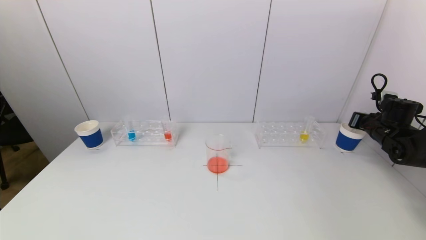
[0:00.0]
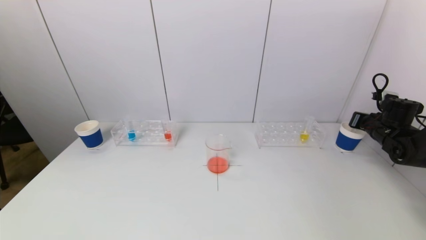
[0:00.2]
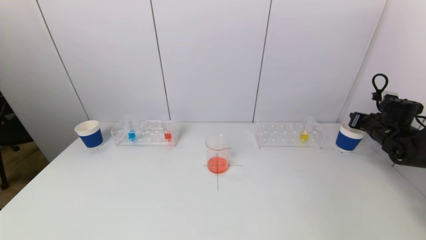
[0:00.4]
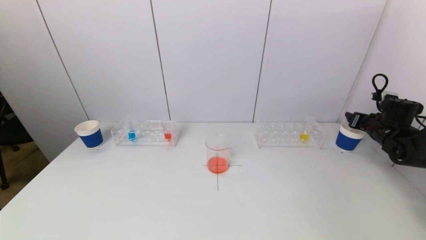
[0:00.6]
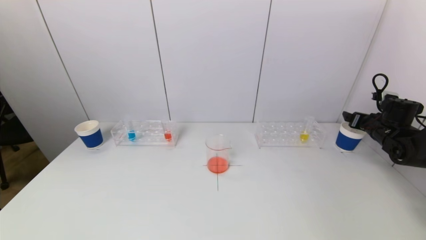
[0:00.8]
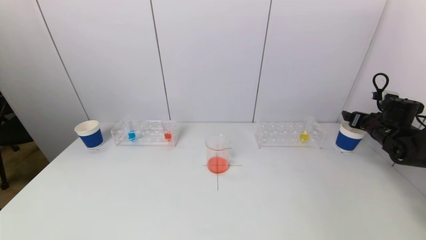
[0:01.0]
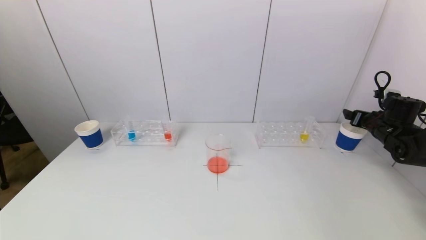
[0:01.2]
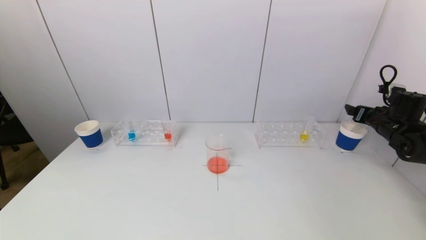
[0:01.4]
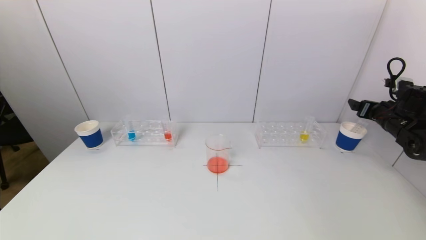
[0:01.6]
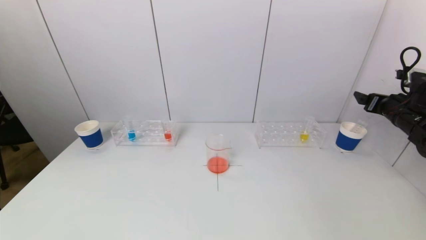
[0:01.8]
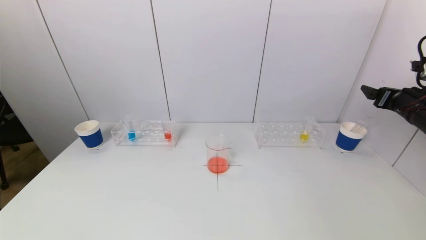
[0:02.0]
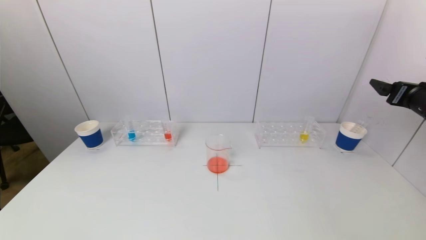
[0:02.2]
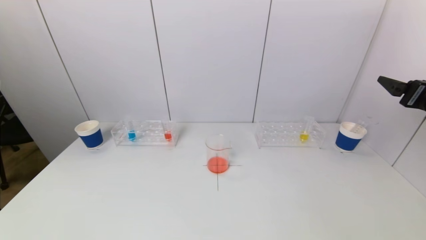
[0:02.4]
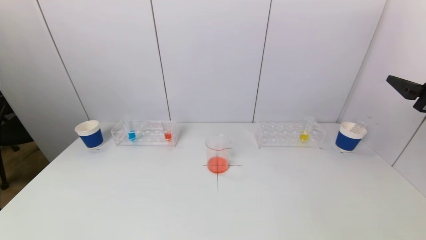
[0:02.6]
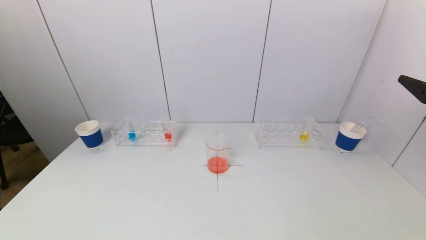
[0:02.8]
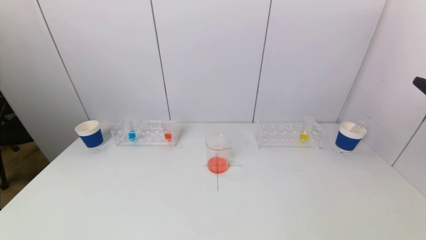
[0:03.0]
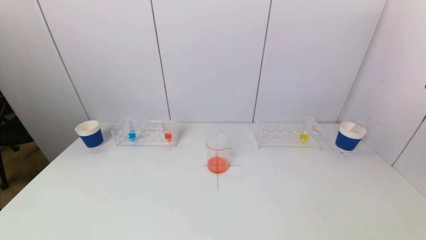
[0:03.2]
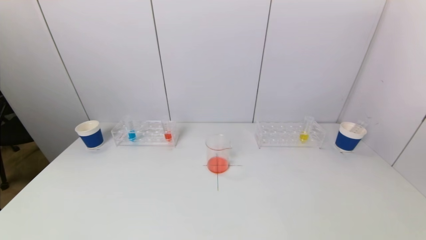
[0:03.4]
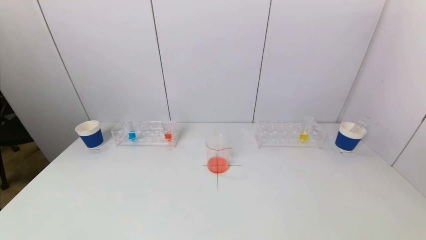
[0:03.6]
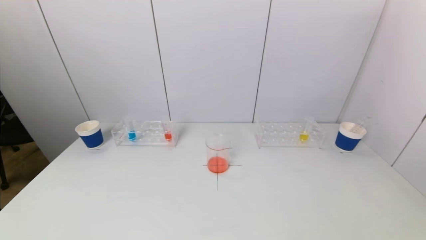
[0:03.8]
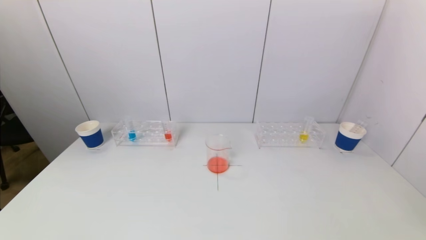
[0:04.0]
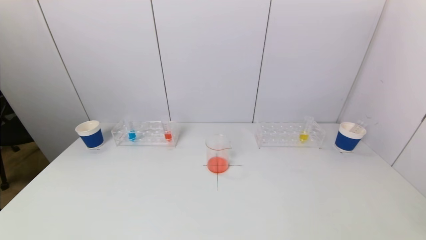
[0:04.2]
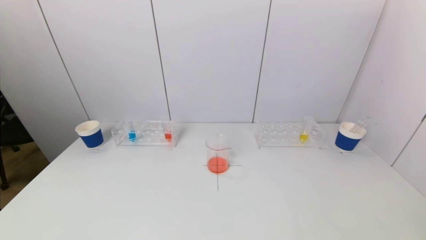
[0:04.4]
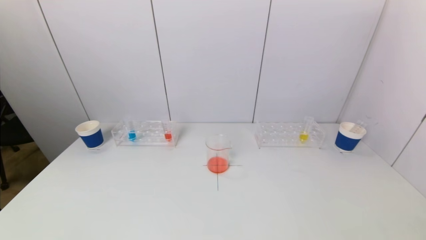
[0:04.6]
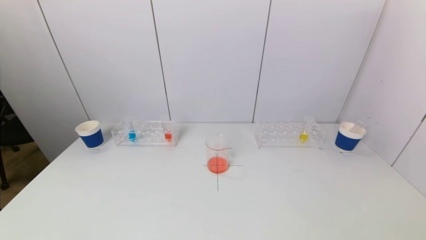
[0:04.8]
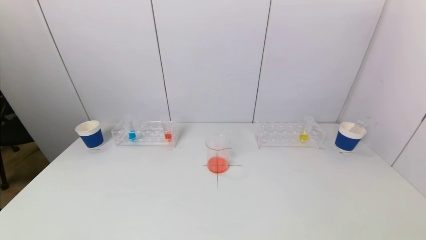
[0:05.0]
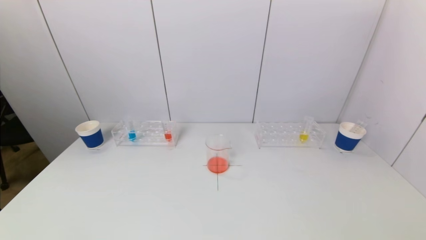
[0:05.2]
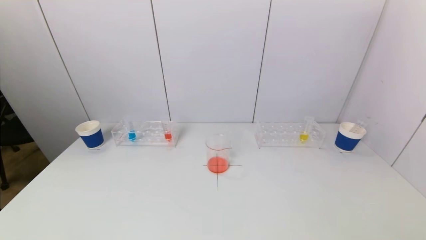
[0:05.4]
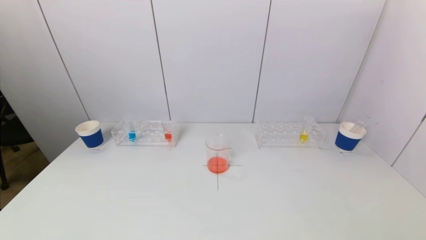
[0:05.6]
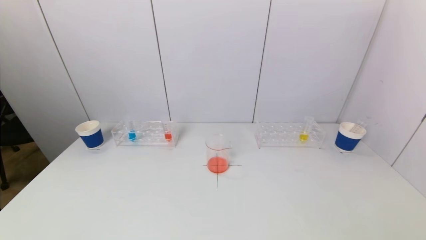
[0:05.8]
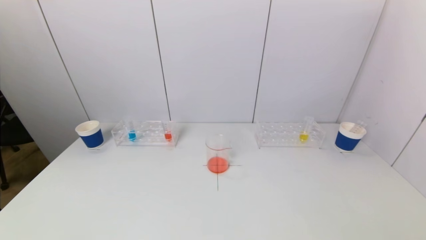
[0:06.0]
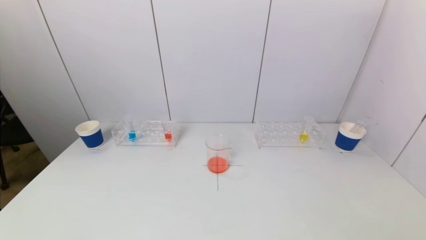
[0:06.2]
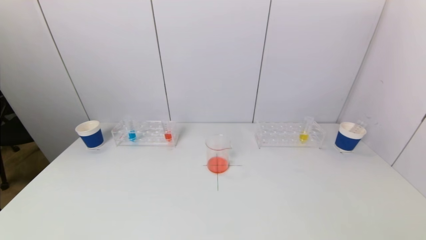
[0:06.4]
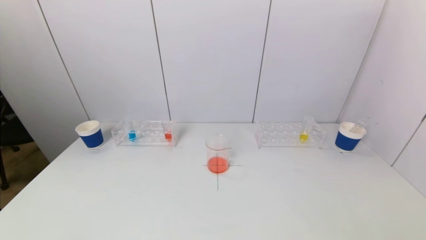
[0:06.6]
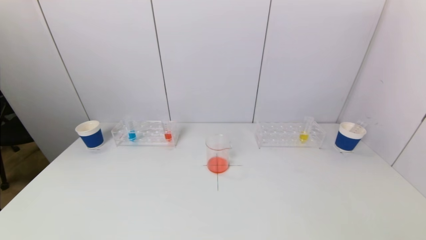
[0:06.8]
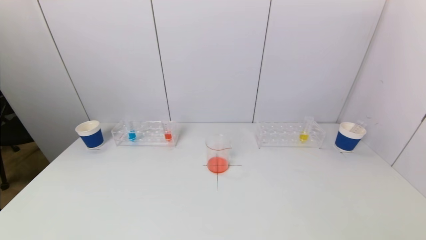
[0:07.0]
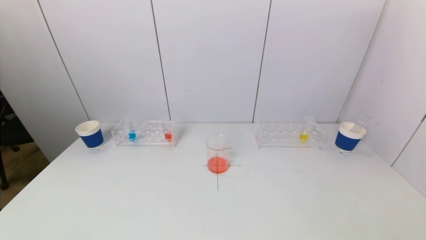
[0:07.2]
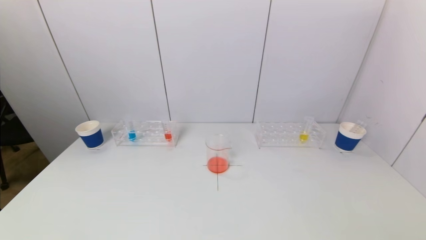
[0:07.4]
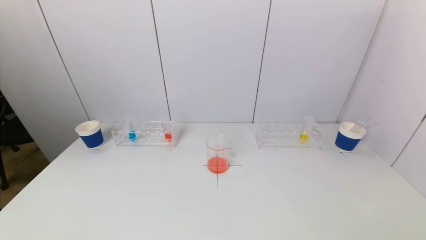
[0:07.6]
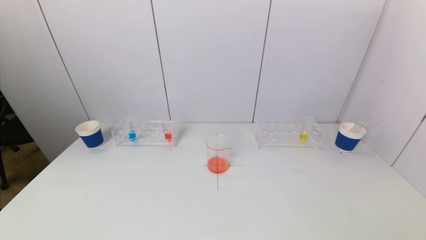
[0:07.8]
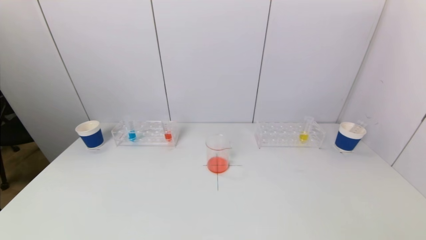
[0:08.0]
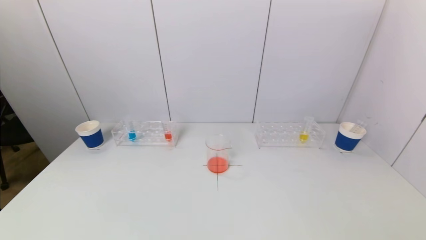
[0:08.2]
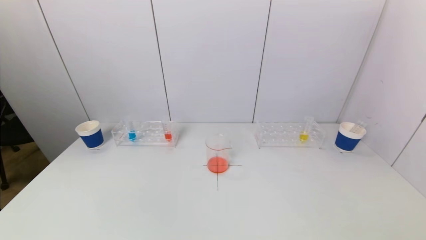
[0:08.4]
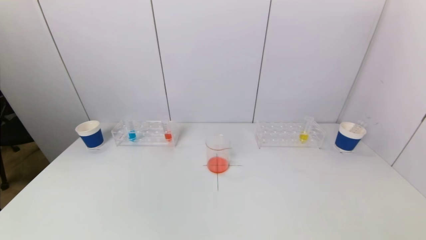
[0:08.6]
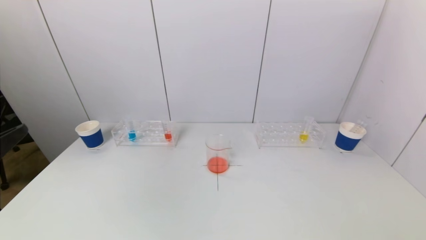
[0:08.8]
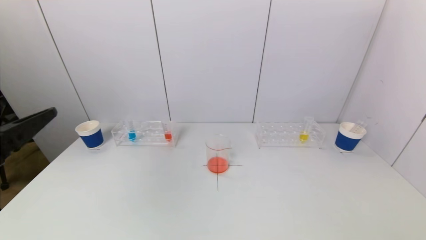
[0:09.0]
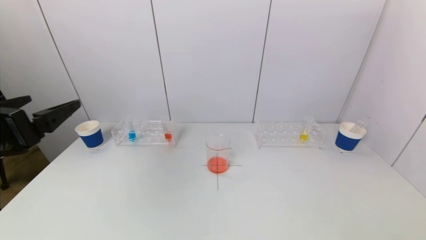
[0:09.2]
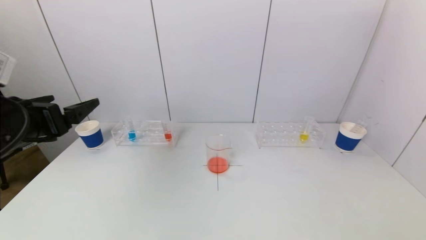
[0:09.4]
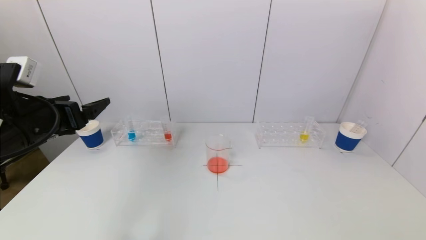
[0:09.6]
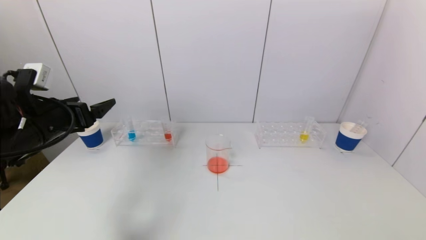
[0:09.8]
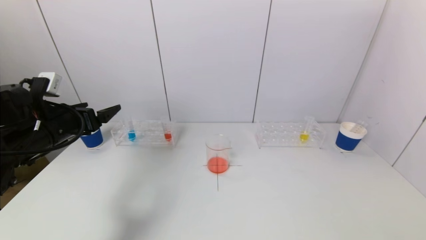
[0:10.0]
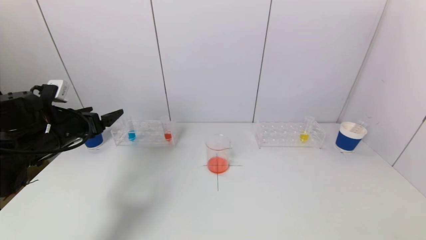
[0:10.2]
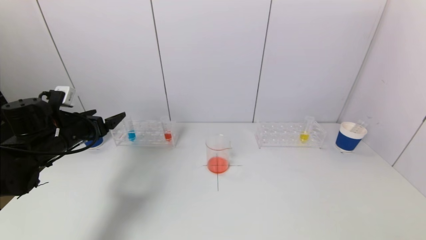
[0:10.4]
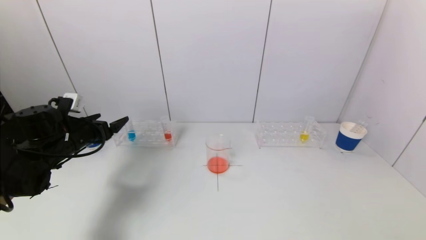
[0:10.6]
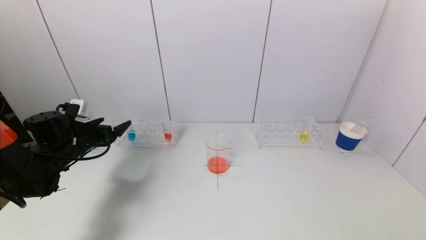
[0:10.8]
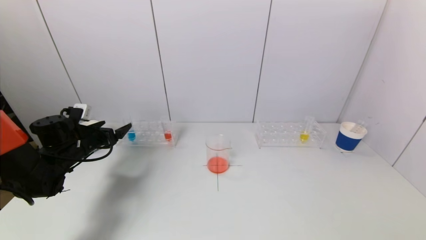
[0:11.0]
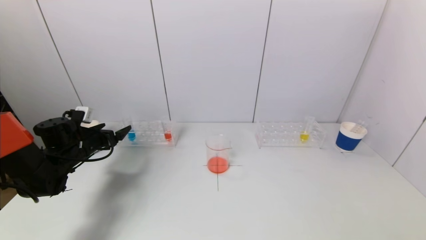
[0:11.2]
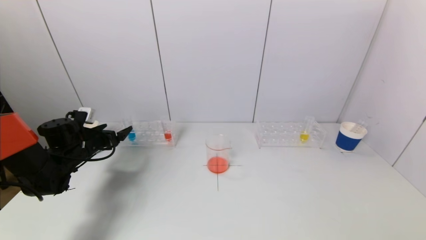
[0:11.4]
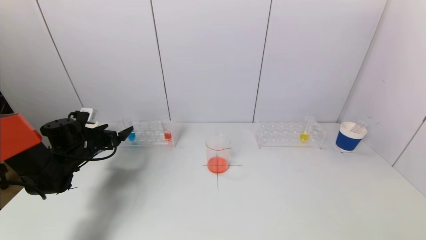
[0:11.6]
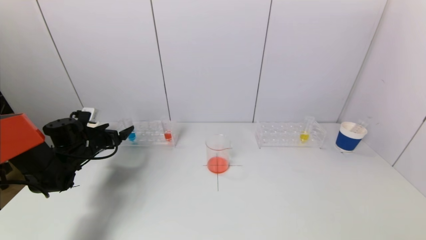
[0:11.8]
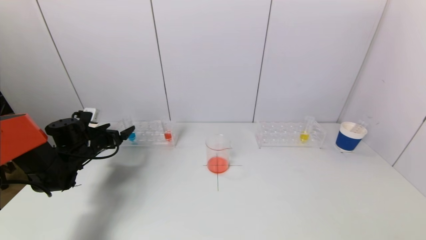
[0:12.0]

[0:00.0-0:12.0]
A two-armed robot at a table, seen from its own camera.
Task of the whole recording: pick up a test tube with pigment on left test tube rack and a test tube with pigment on right test tube rack by grippers and pour them into the beaker.
0:00.0 to 0:01.6: The right gripper moves roughly 5 cm, and opens.
0:01.6 to 0:03.0: The right gripper shifts roughly 25 cm backward and upward.
0:07.6 to 0:09.0: The left gripper moves upward and forward, some 20 cm.
0:09.0 to 0:10.4: The left gripper heads forward and downward, covering approximately 25 cm.
0:10.4 to 0:12.0: The left gripper goes about 10 cm downward and forward.

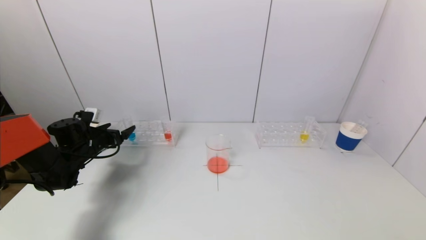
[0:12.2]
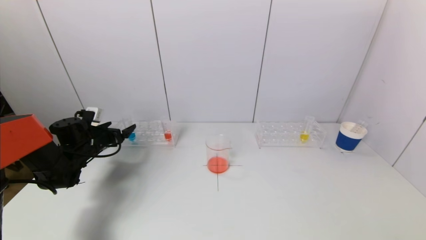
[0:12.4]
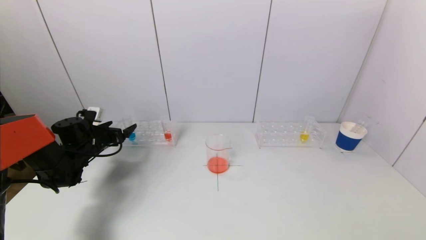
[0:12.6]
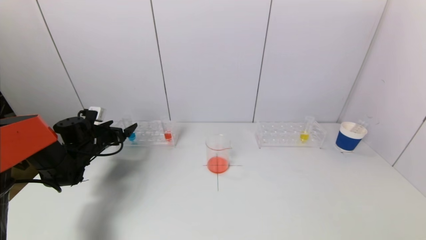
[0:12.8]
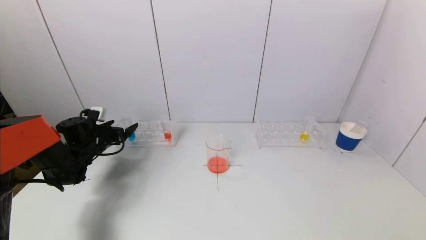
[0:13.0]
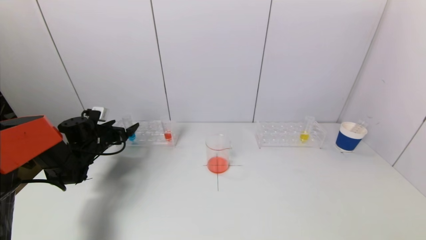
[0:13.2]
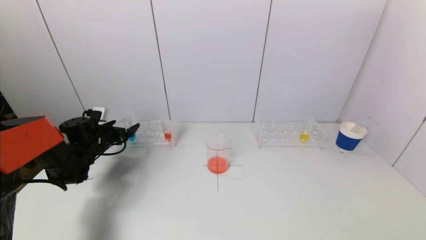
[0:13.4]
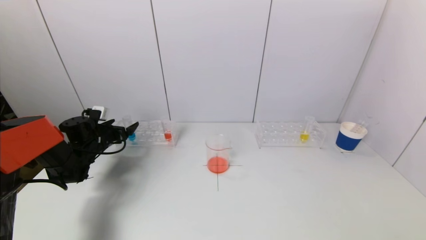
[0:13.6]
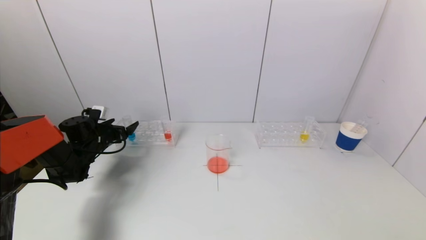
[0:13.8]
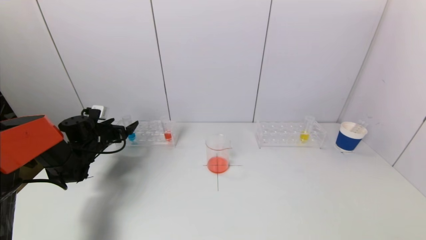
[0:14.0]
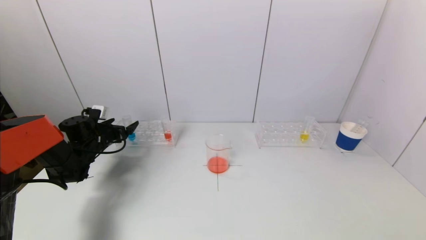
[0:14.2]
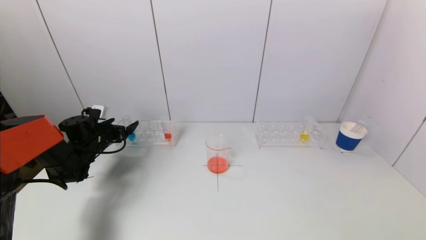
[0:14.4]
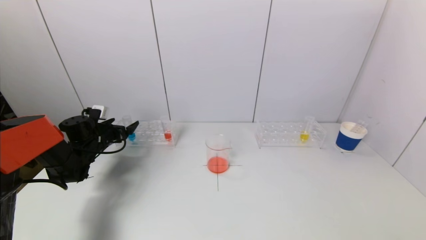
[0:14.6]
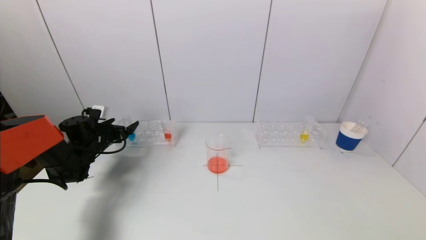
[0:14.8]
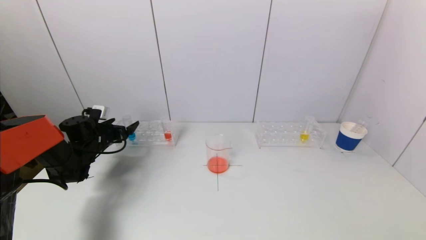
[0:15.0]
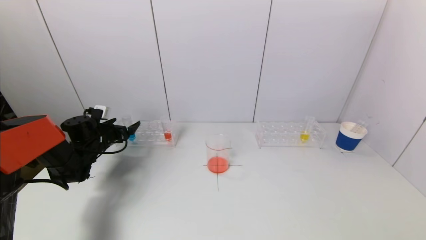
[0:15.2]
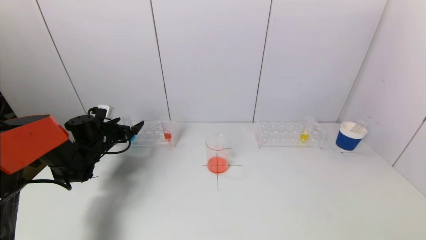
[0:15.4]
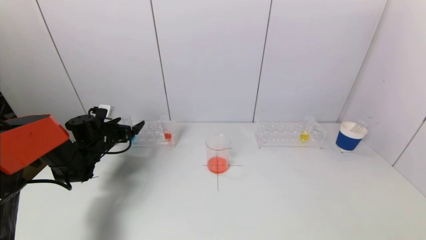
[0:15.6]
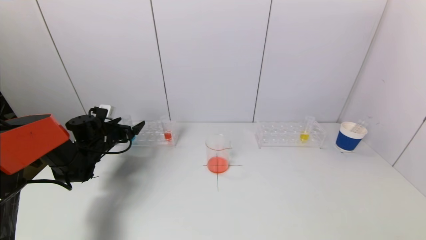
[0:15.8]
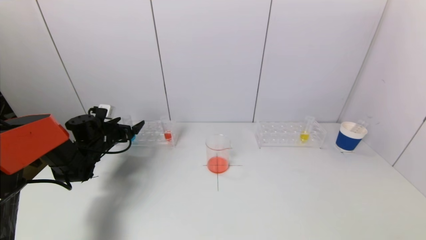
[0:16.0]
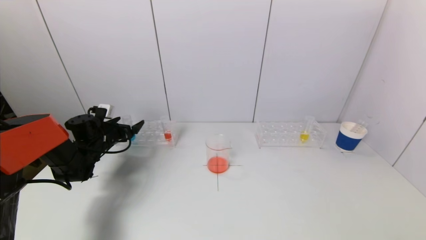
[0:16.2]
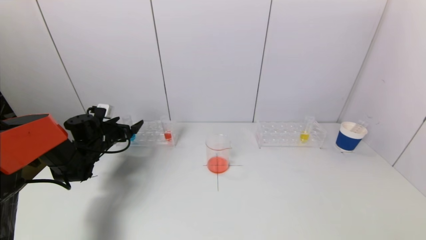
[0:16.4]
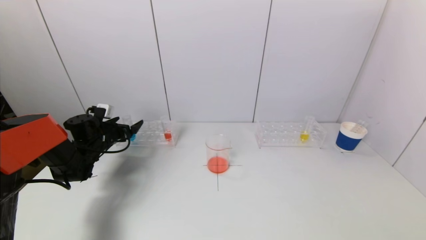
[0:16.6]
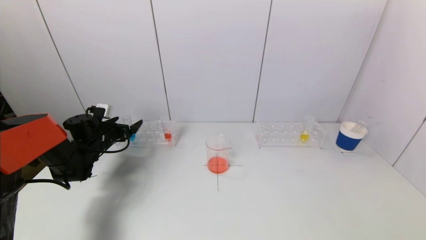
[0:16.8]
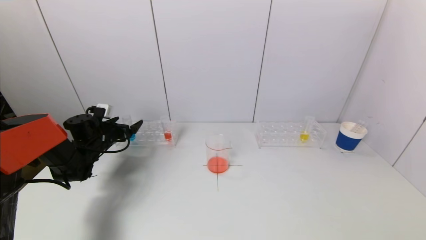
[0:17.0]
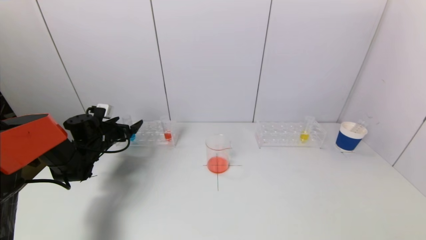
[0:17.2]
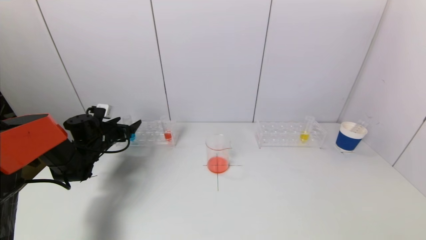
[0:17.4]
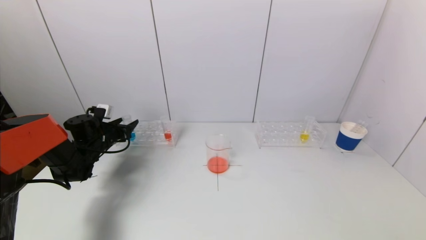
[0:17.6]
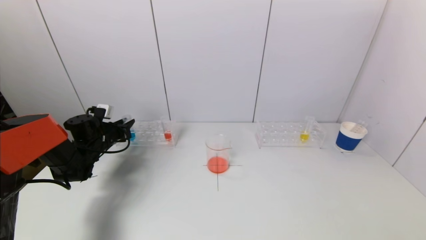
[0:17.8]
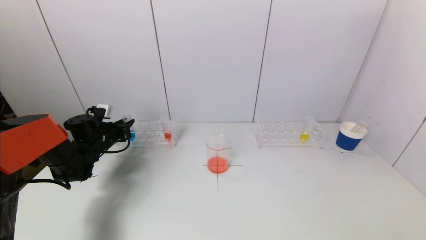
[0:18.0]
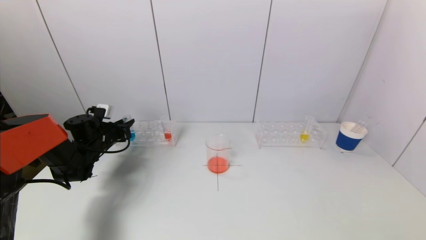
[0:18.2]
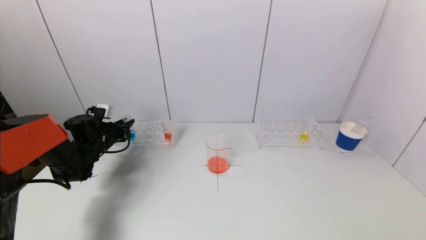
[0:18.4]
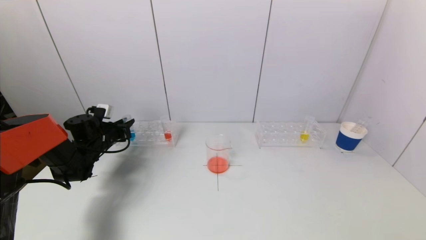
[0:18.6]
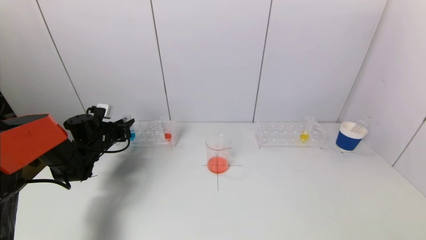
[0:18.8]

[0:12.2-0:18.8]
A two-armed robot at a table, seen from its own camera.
Task of the whole recording: pick up a test tube with pigment on left test tube rack and a test tube with pigment on right test tube rack by grippers and pour them into the beaker.
Step, 0:12.2 to 0:18.2: Grasp the blue reagent with the left gripper.
0:12.2 to 0:15.4: The grippers make only small movements.
0:15.4 to 0:17.2: Both grippers stay put.
